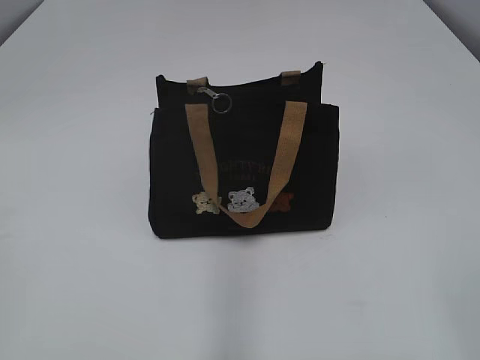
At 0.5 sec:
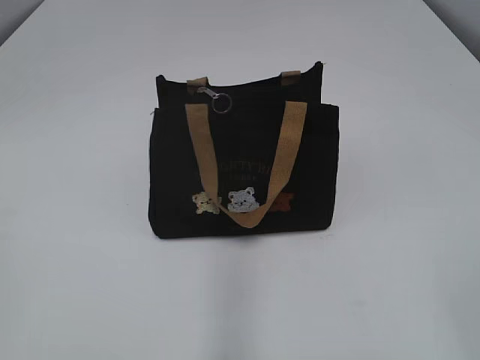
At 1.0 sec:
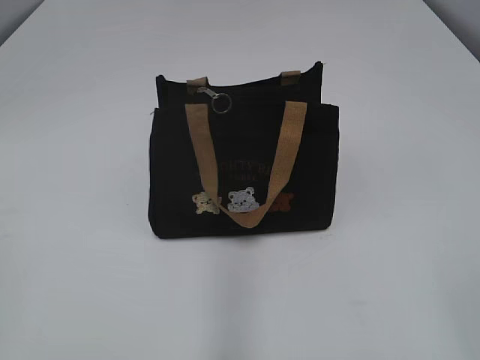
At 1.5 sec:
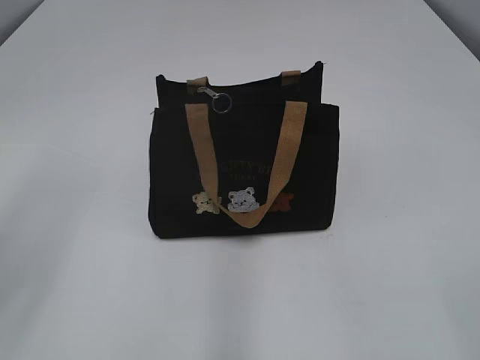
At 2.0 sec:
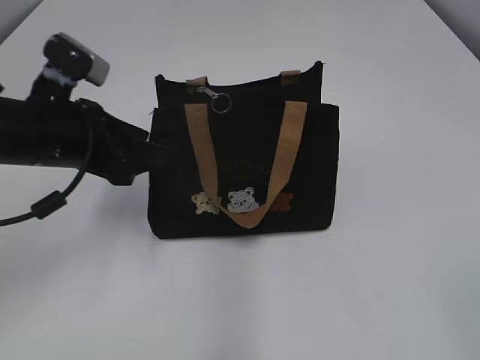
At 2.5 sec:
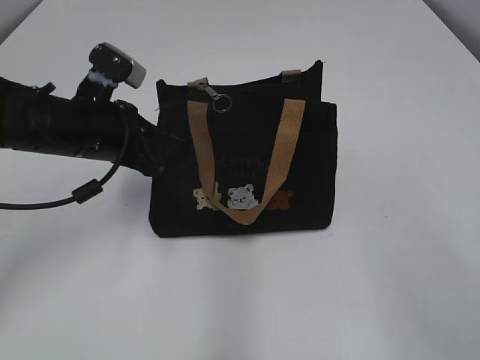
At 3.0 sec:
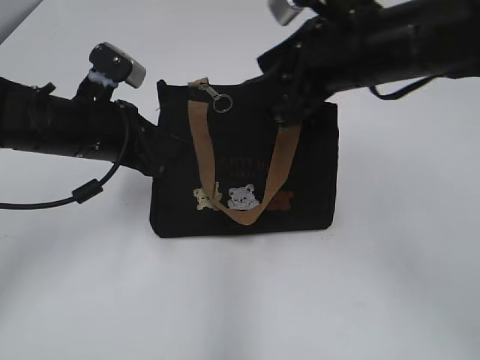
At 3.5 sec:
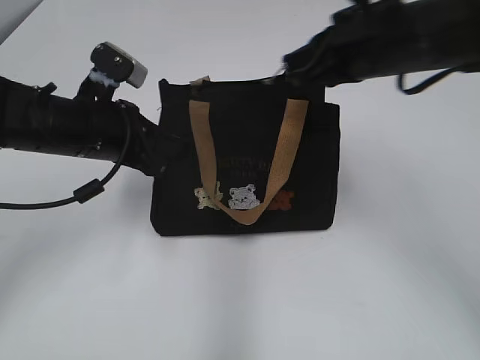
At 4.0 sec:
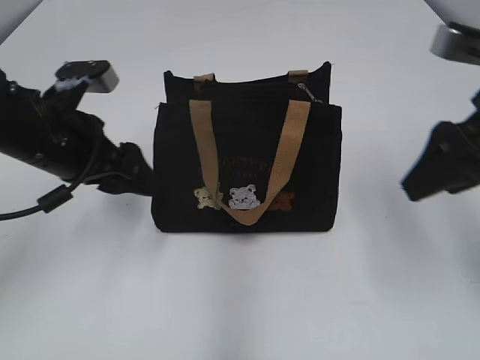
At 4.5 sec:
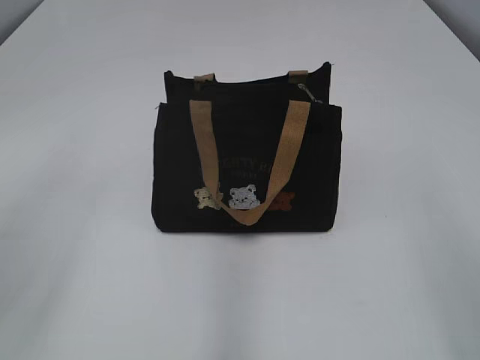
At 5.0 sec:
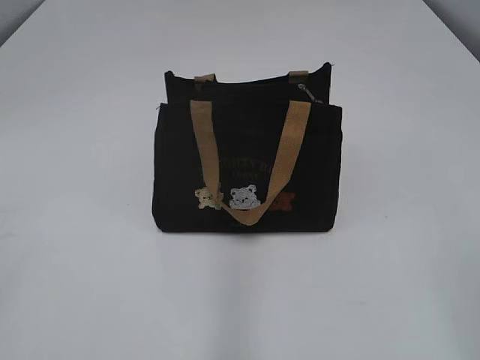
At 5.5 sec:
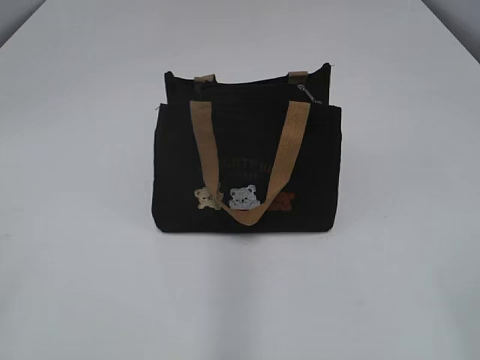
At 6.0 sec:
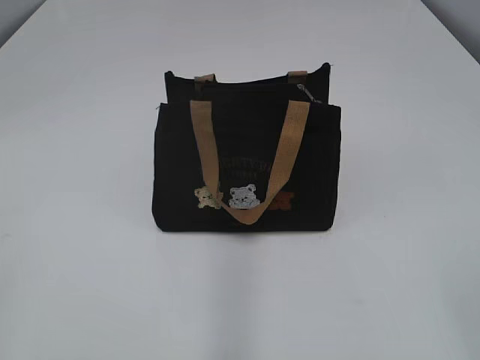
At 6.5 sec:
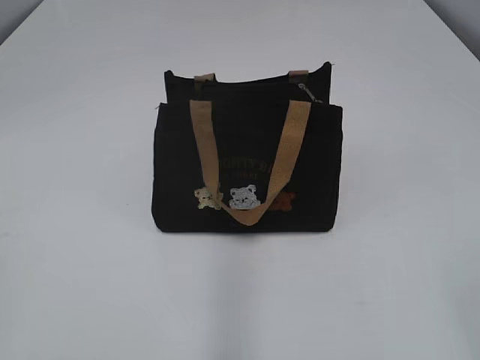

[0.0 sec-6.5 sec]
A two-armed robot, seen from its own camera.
Step, 0.0 sec to 3.5 sec: Pull open the zipper with your right hand.
2.0 sec to 4.5 sec: The right gripper heads forward, covering some 15 cm, and closes, then reopens. Meanwhile the left gripper travels upward by roughly 5 cm, and closes and opens again.

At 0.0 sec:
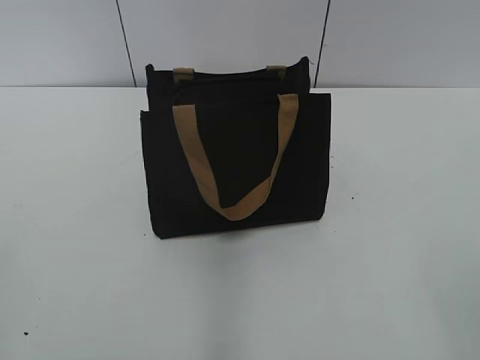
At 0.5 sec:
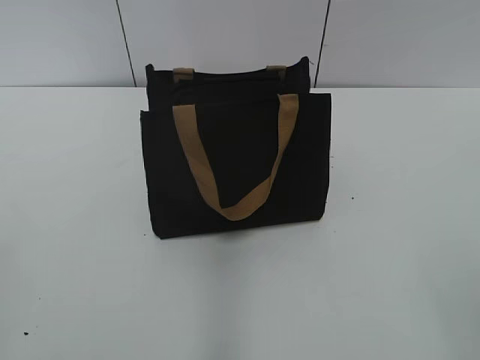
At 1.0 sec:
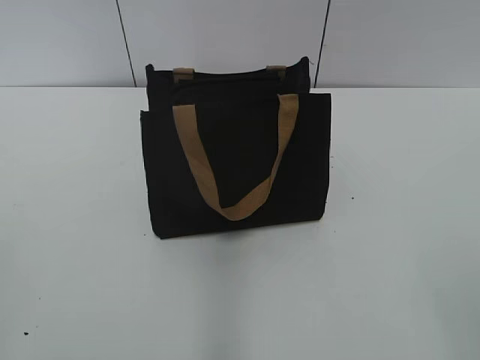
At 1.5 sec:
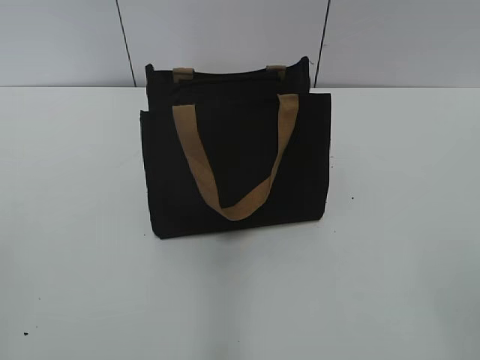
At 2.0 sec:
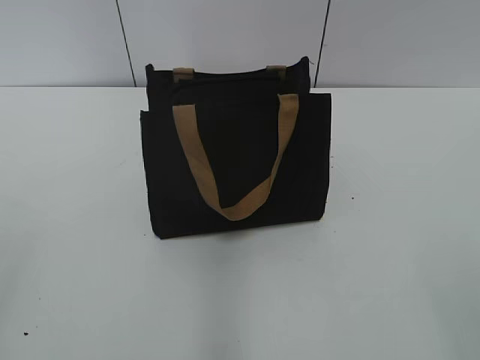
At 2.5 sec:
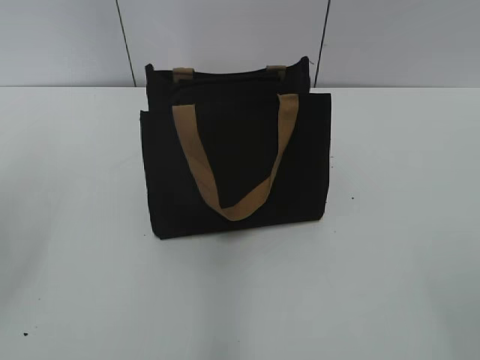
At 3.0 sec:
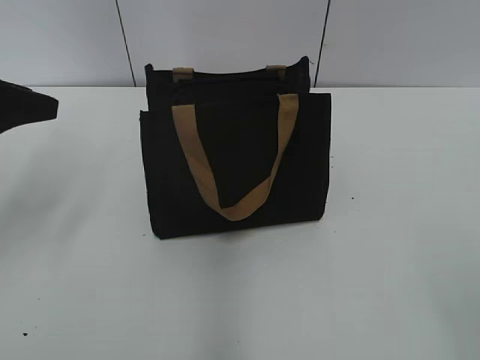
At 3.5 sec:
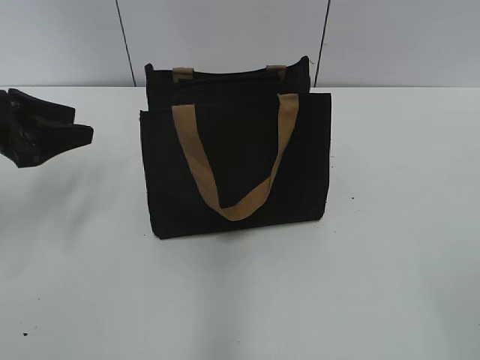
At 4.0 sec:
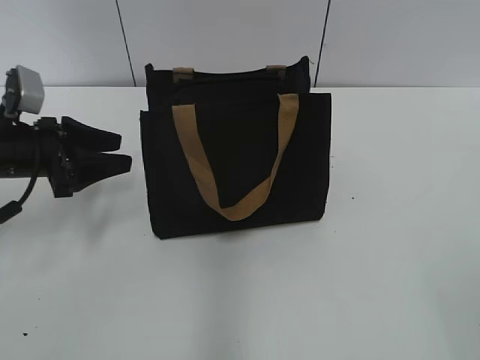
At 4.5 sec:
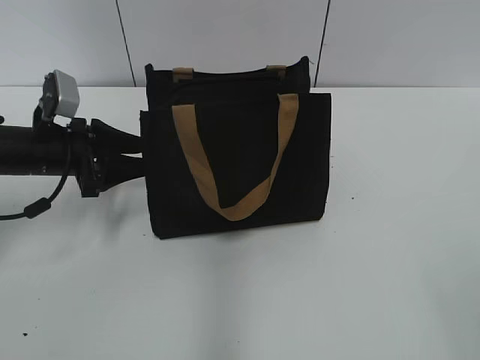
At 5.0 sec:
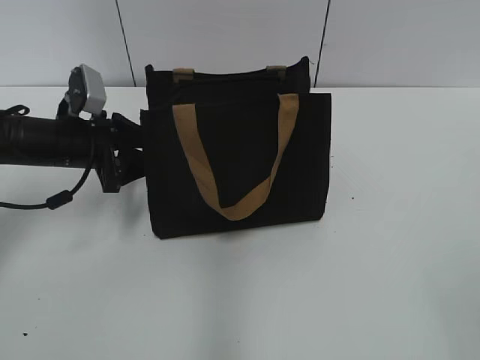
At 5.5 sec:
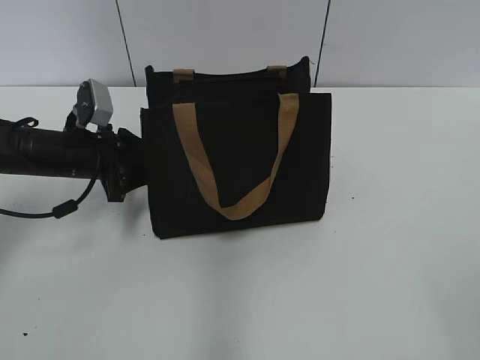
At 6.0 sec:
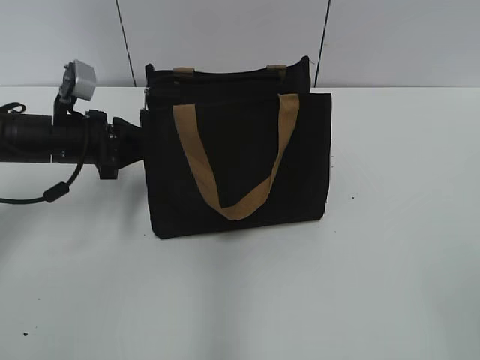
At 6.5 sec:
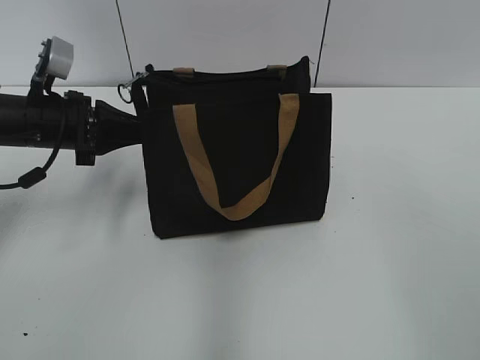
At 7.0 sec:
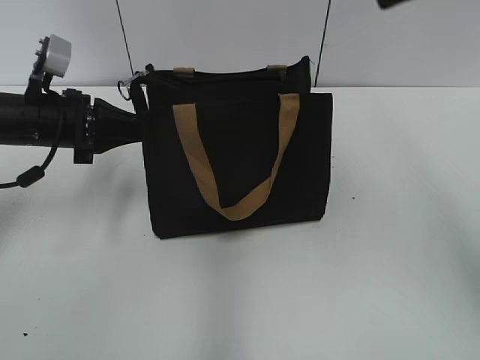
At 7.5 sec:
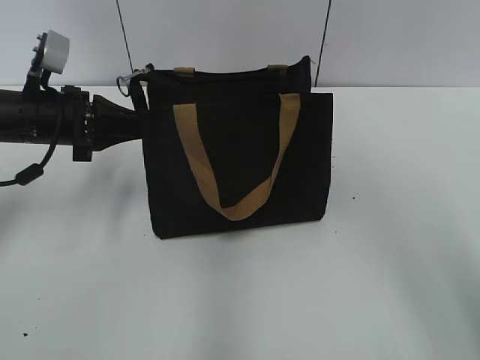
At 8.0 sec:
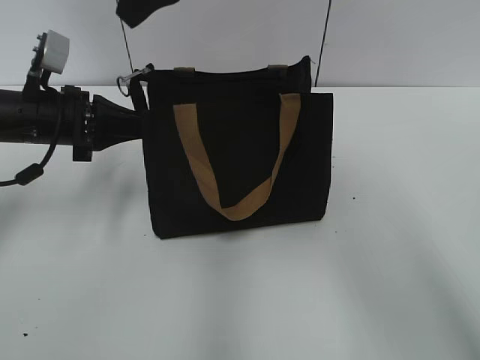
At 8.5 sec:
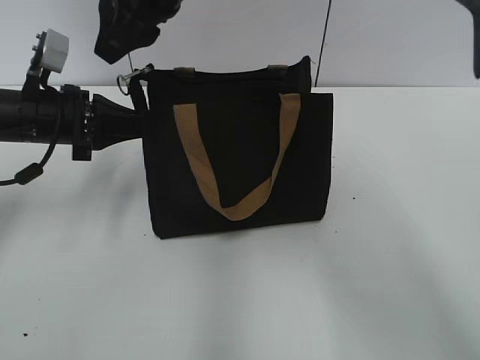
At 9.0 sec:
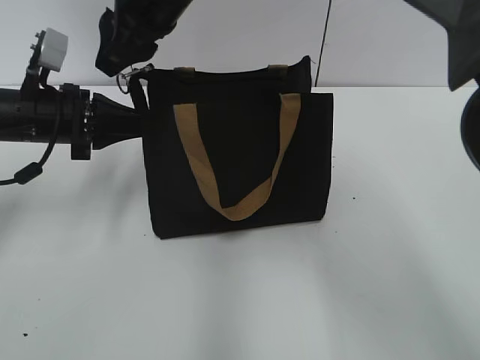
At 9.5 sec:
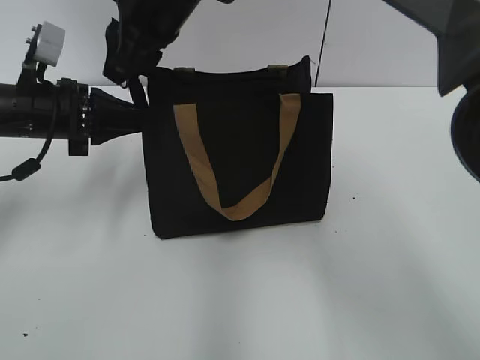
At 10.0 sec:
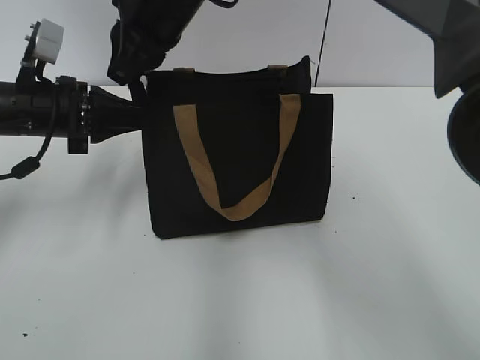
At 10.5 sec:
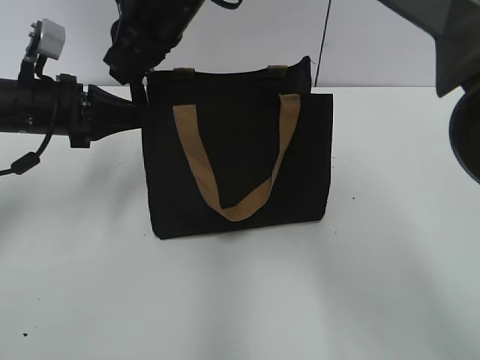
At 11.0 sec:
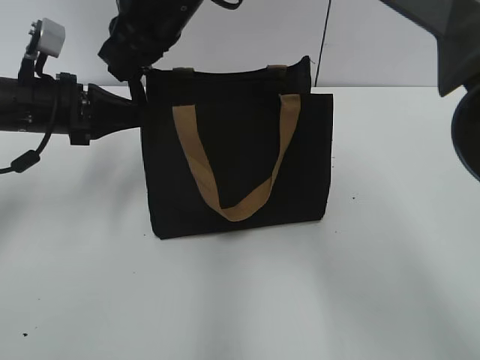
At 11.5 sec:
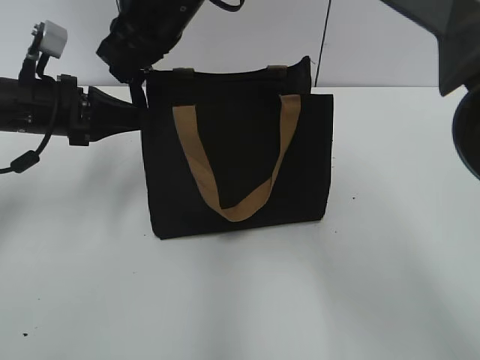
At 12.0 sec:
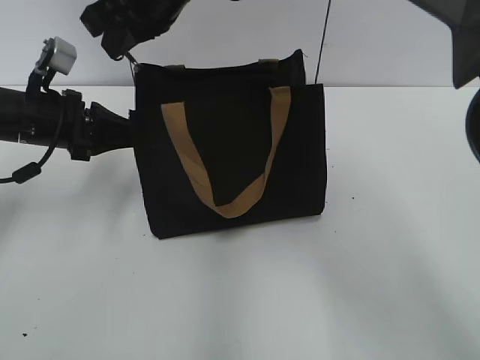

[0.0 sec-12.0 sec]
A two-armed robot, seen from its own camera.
2.0 sec to 4.0 sec: The left gripper shifts roughly 35 cm forward and downward.
4.0 sec to 6.0 sec: The left gripper travels to the right by about 5 cm, and closes up.
6.0 sec to 8.0 sec: The right gripper travels forward and to the left by about 50 cm.
8.0 sec to 10.0 sec: The right gripper goes about 5 cm downward, and closes up.

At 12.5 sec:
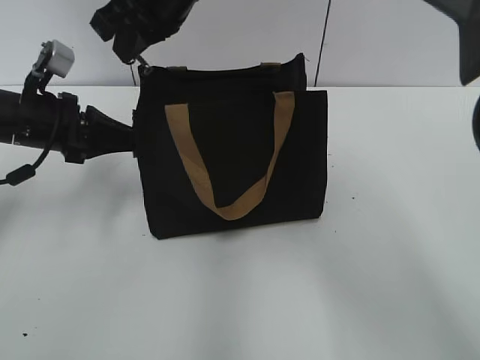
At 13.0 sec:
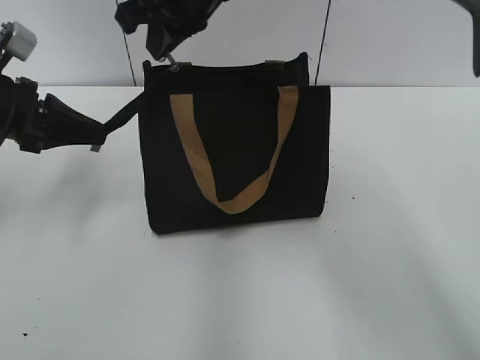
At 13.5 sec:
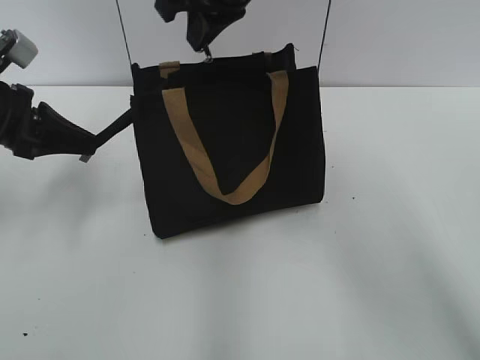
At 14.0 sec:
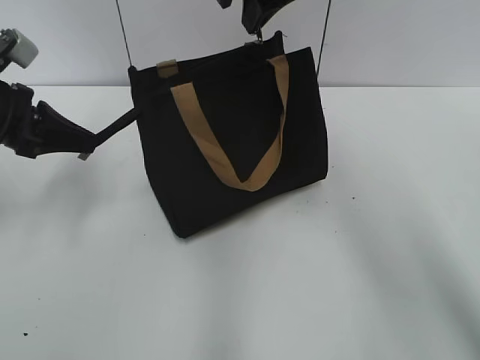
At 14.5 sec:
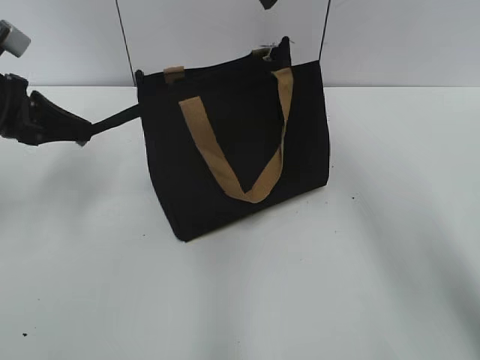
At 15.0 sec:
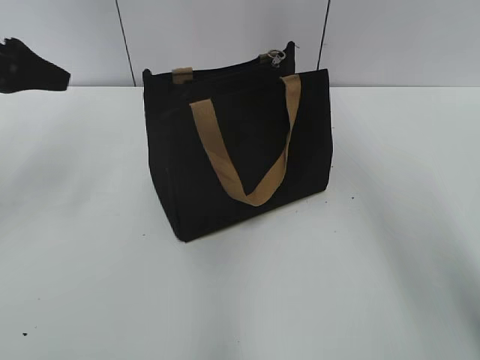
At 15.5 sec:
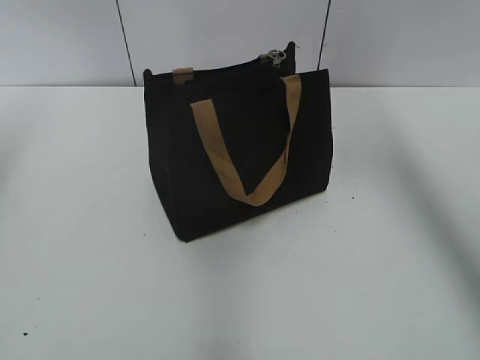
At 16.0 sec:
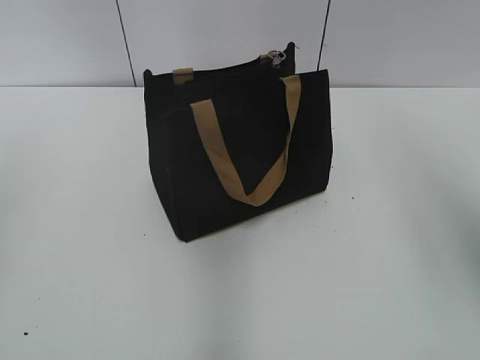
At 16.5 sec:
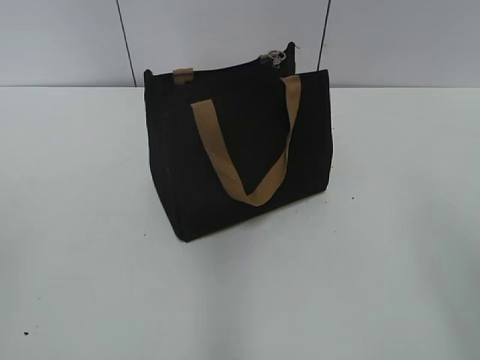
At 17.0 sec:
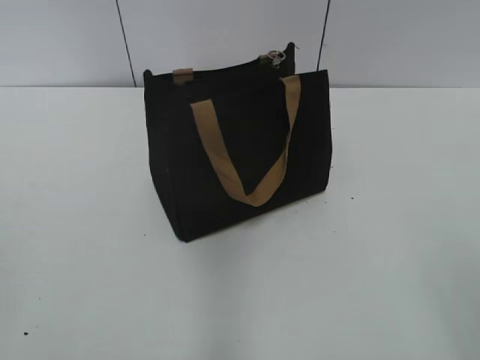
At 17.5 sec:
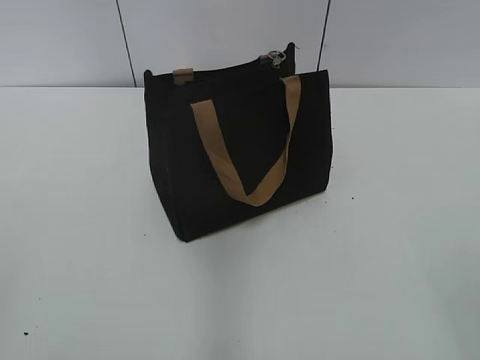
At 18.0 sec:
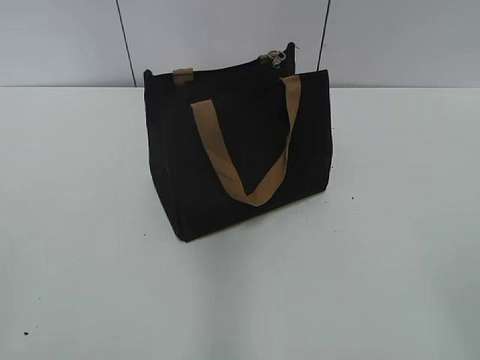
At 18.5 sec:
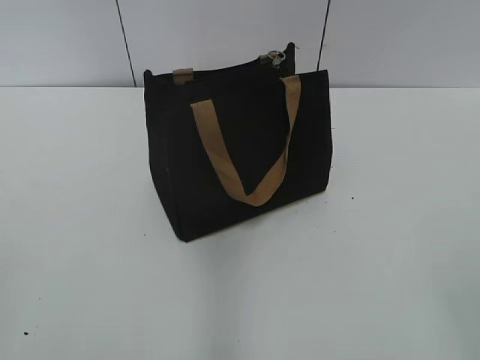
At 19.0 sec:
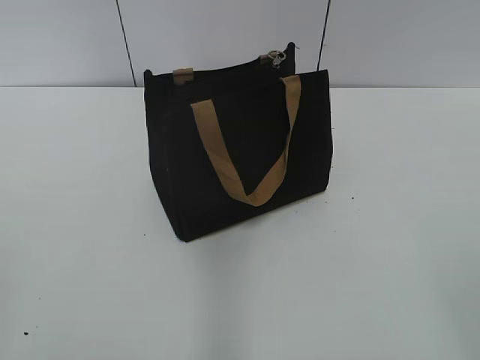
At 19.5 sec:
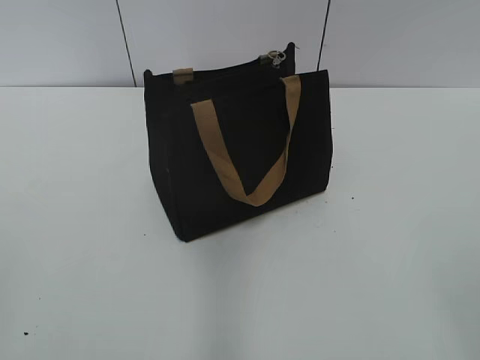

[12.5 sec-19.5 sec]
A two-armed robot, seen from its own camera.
12.5 sec to 14.5 sec: The left gripper shifts by roughly 5 cm. The right gripper shifts roughly 15 cm to the right, and opens its fingers.
14.5 sec to 16.0 sec: The right gripper travels backward and to the right by some 30 cm. Meanwhile the left gripper goes roughly 25 cm backward and upward, and opens its fingers.
